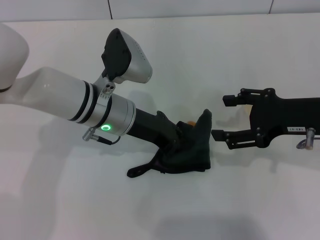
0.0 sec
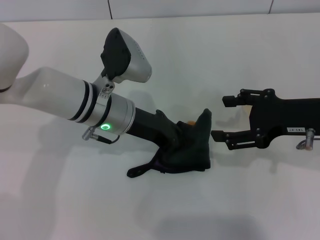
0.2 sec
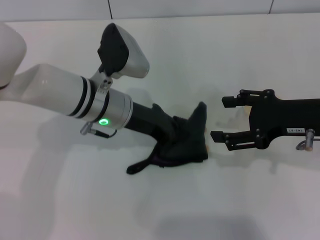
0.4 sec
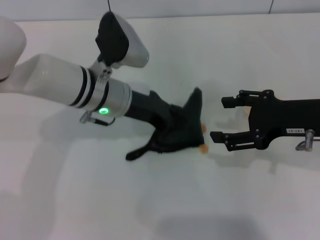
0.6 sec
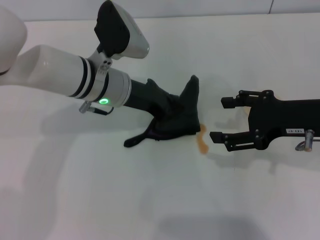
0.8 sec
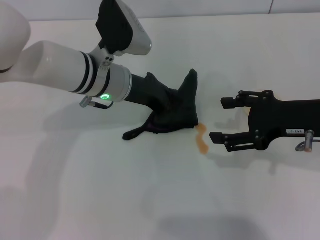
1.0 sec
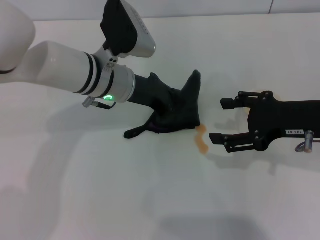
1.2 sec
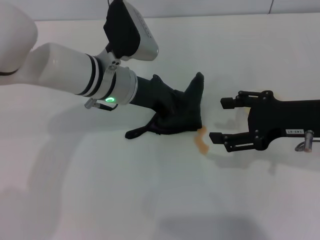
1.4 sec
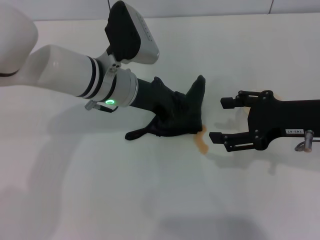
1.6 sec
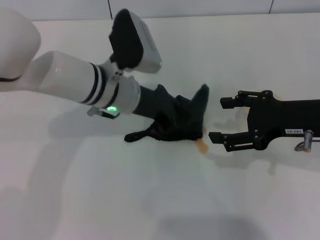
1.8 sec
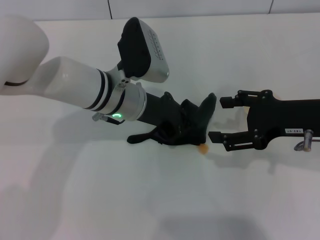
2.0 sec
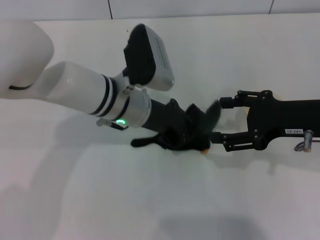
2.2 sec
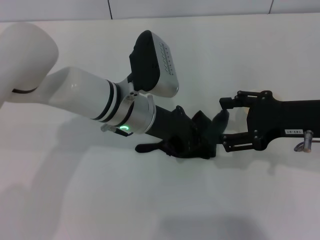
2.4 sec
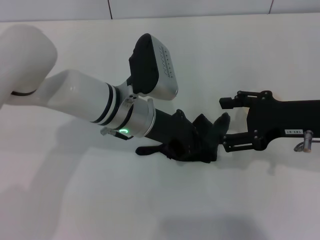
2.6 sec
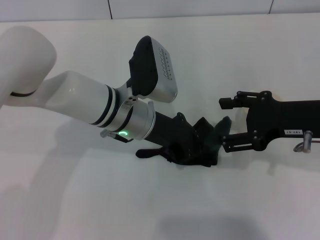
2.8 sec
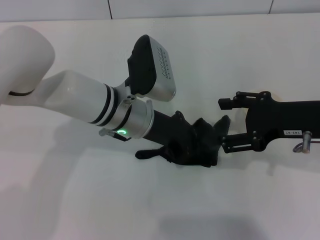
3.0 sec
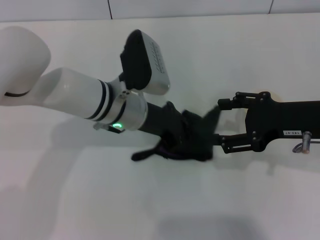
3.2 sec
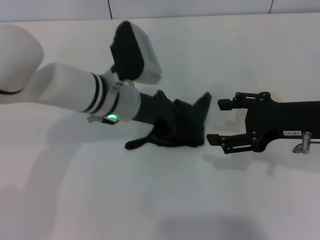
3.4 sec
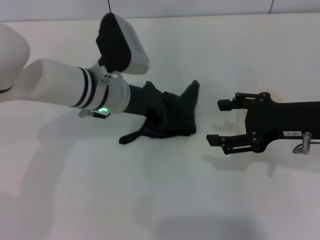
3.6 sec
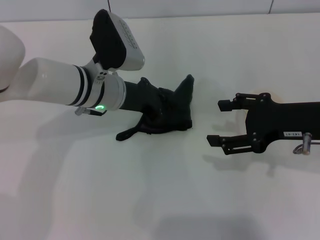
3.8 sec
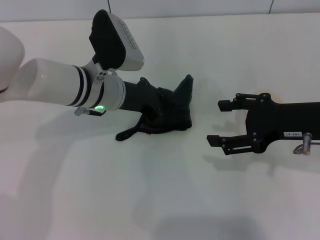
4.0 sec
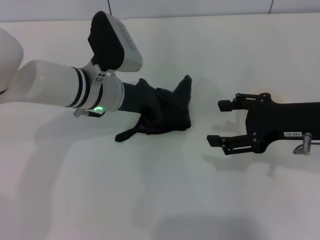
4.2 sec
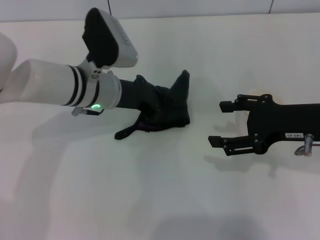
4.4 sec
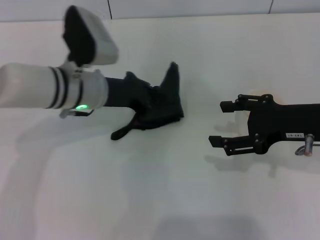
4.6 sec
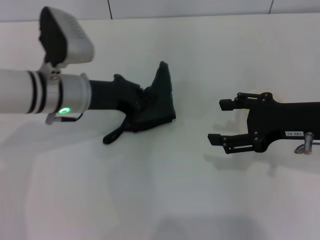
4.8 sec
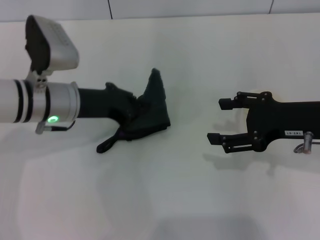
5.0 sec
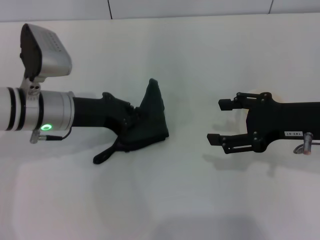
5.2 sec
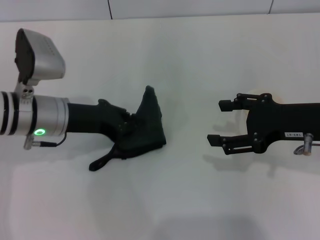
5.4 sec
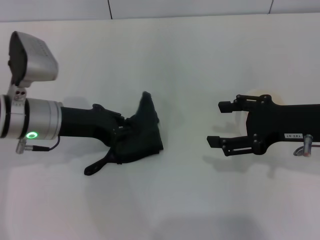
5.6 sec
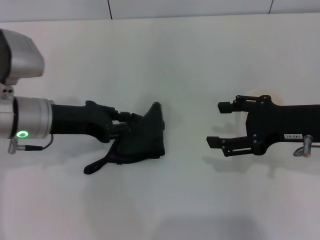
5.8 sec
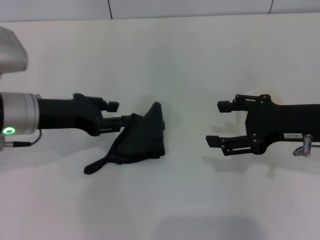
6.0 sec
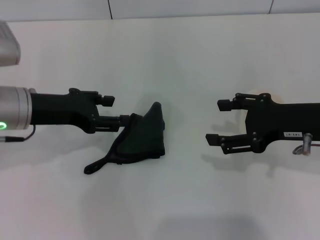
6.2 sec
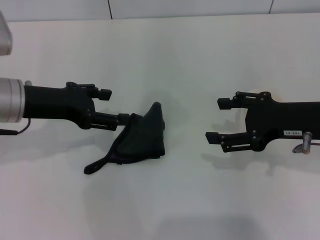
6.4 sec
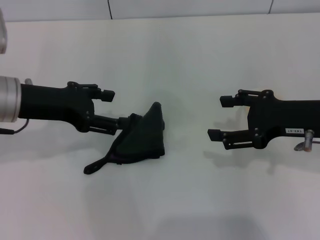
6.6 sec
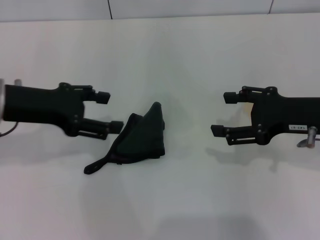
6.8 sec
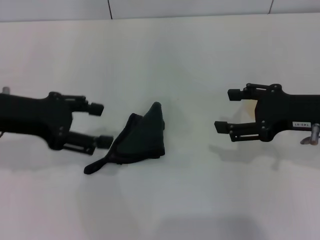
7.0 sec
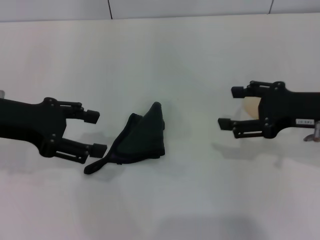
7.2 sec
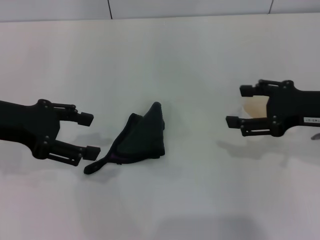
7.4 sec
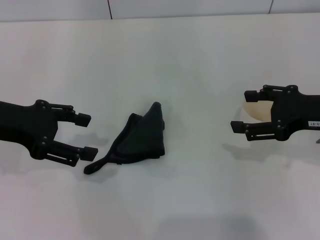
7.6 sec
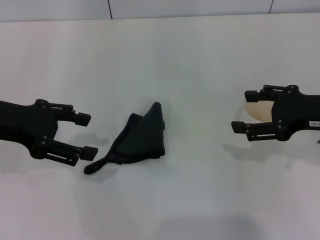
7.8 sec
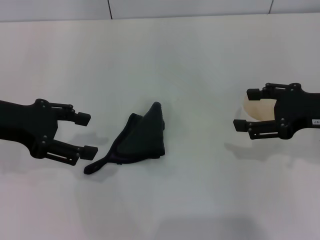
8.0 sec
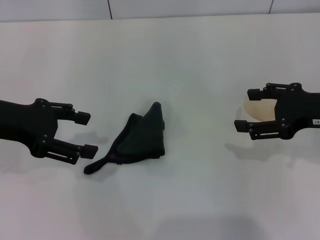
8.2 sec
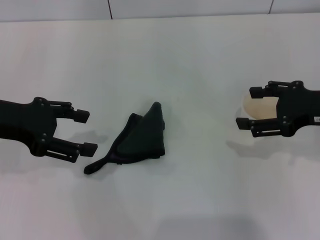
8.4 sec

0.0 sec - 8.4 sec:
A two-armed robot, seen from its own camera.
Step, 0.0 sec - 5.4 sec: Wipe the stains off the table with the left gripper.
Step, 5.6 sec - 6.0 sec: Place the rag on the table with the left gripper.
2.8 sec - 4.2 sec: The left gripper changes place by roughly 5 cm.
4.2 sec - 5.6 sec: The left gripper heads to the left, covering roughly 10 cm.
5.6 sec - 7.0 sec: The left gripper is displaced upward and to the left by approximately 10 cm, and opens.
7.0 sec - 8.4 sec: The grippers move only a little.

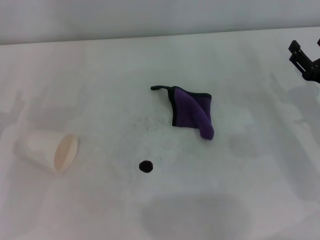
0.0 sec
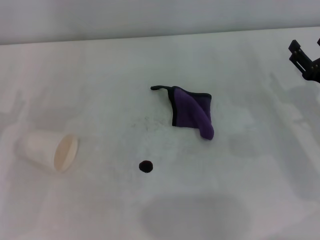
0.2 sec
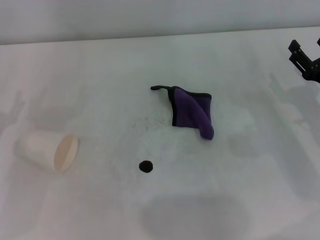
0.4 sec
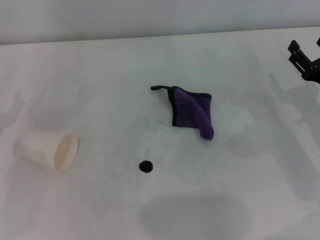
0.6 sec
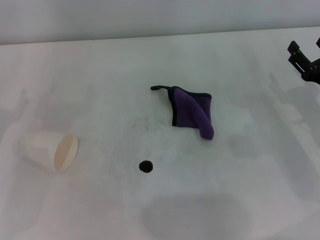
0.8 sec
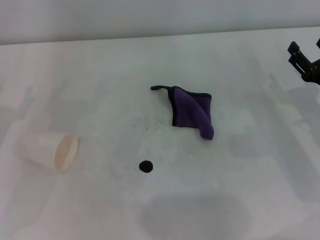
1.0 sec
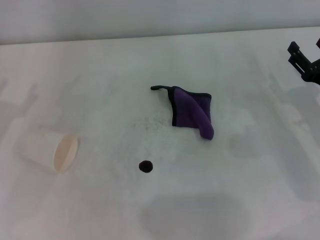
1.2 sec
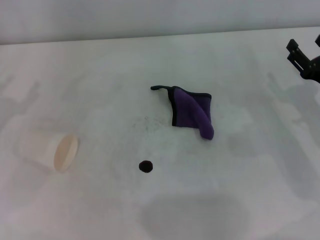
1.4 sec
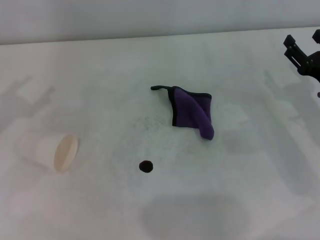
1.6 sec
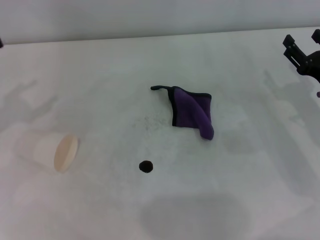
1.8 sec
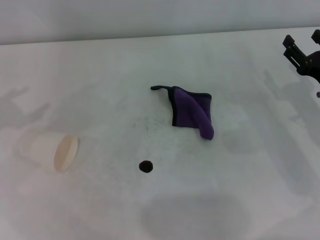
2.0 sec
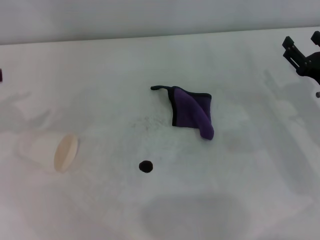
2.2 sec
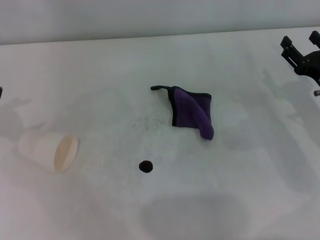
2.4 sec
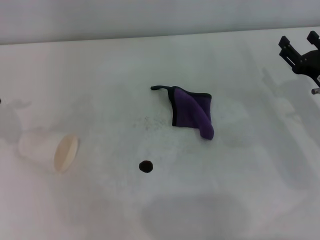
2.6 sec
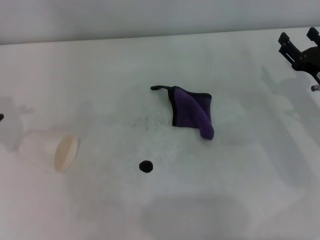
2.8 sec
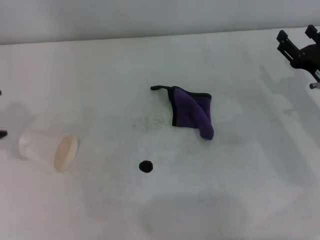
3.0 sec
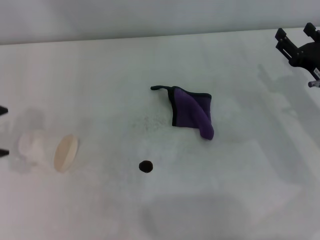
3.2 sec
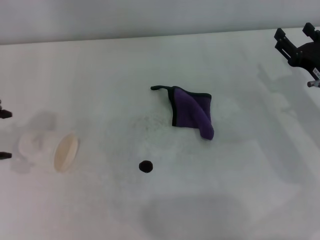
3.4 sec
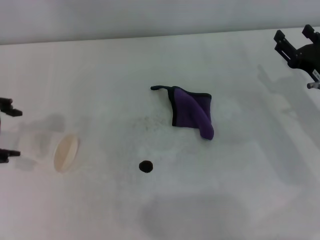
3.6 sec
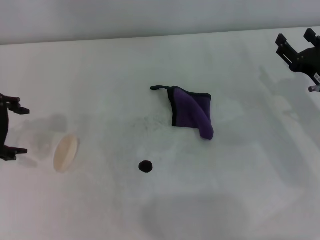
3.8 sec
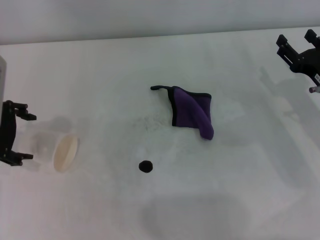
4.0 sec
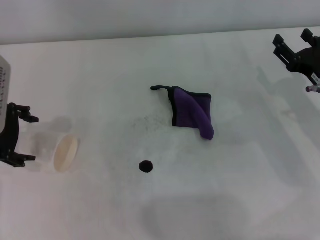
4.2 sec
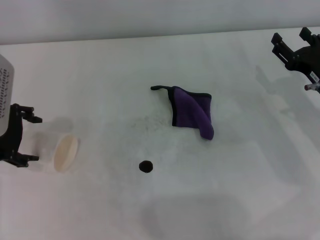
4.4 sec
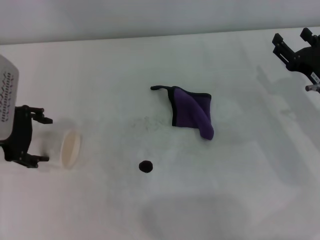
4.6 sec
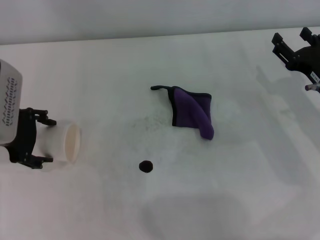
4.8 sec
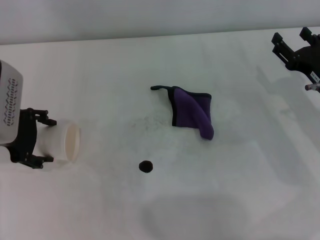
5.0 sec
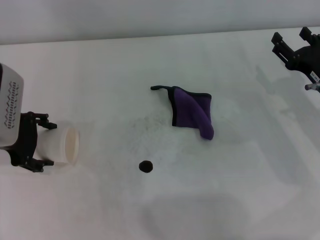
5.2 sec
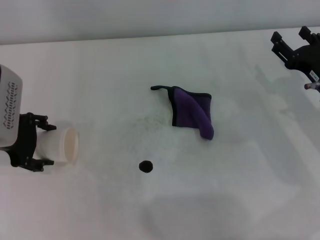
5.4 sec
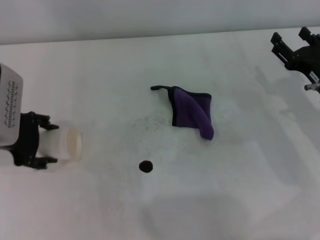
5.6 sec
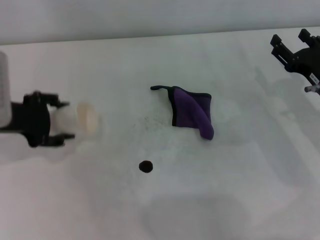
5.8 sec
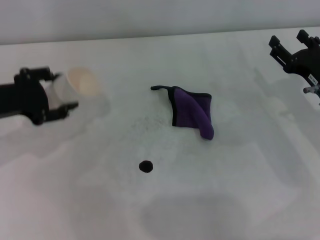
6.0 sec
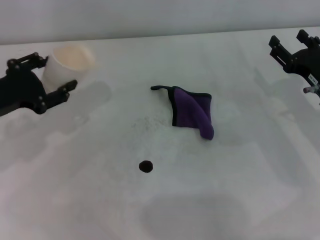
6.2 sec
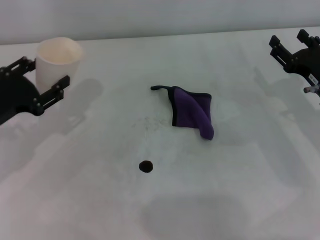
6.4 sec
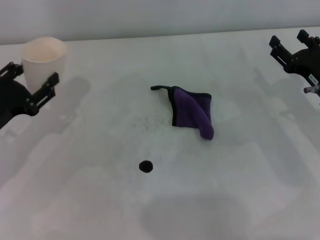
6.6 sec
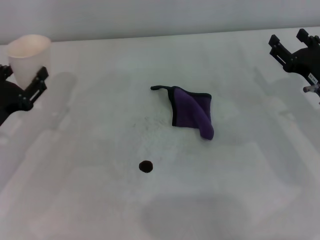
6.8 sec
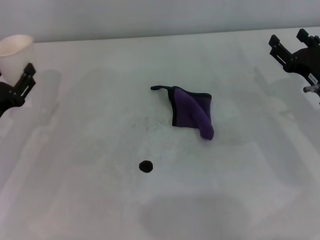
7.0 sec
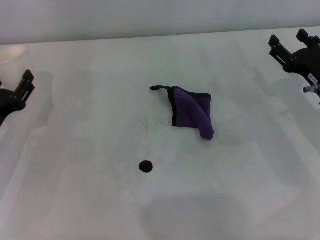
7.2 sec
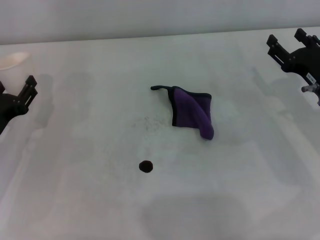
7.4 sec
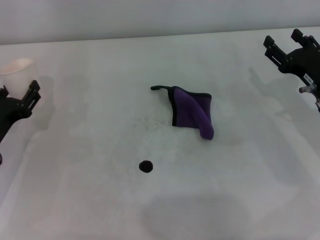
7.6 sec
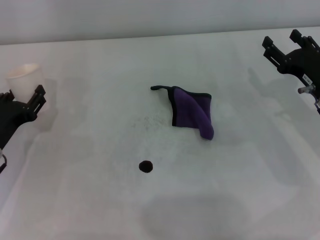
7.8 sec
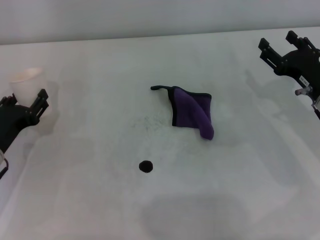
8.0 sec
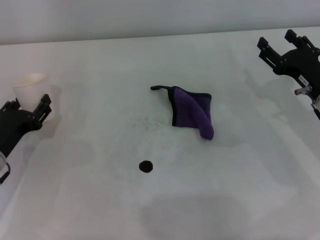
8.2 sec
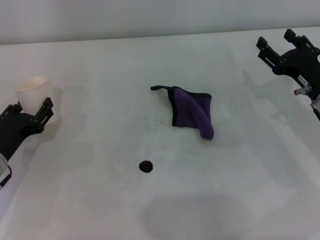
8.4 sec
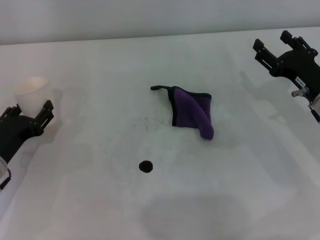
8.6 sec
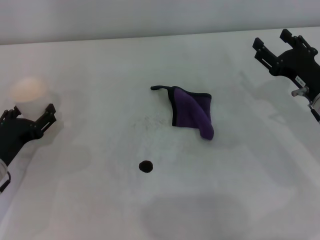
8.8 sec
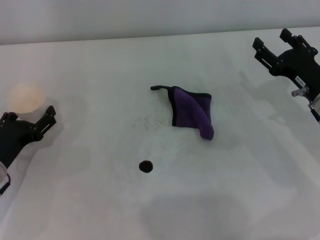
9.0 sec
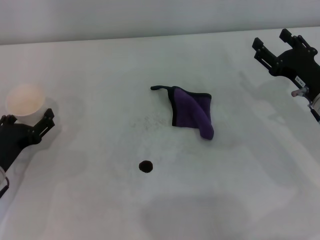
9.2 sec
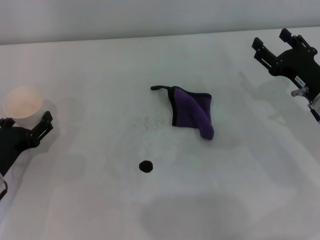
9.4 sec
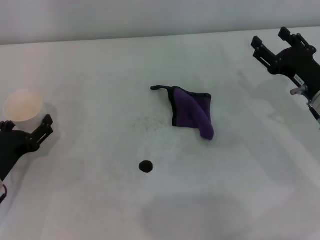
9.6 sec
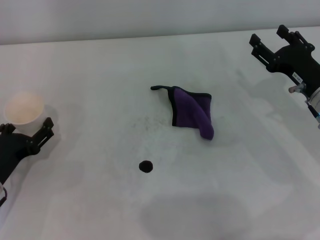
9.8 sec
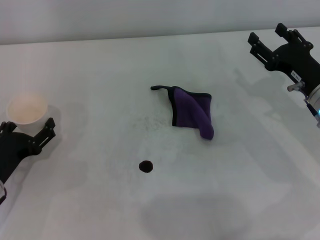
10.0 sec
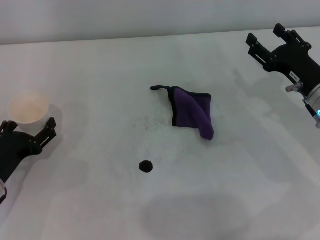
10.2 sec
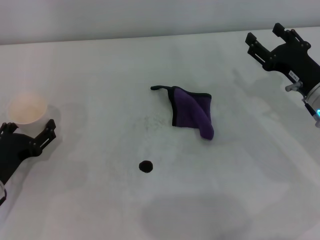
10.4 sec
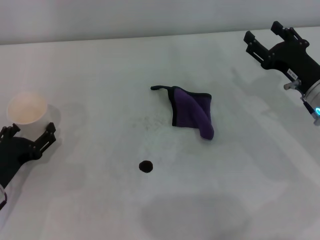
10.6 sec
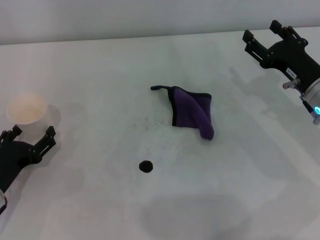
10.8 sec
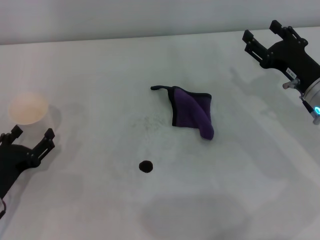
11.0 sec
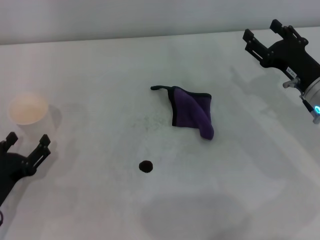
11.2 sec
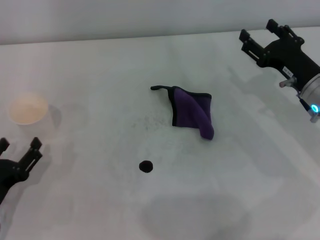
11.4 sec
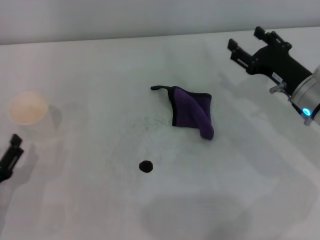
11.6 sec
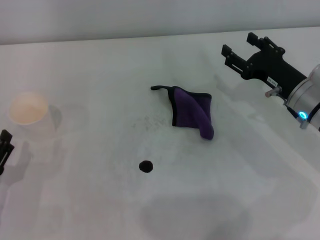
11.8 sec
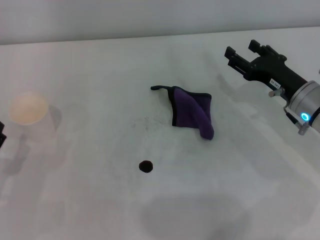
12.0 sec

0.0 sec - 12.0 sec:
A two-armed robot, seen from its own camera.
Step, 0.0 sec - 5.4 sec: Grasp the paper cup with the left gripper.
Step, 5.6 sec - 10.8 sec: Stand the paper cup upright with the left gripper.
3.0 sec - 4.4 sec: The left gripper travels to the right and downward by approximately 10 cm.
4.4 sec - 6.0 sec: The left gripper closes up.
6.0 sec - 7.6 sec: The left gripper heads downward, covering about 10 cm.
7.6 sec - 9.0 sec: The left gripper opens its fingers.
9.0 sec - 10.4 sec: There are only small adjustments of the grippers.
10.4 sec - 12.0 sec: The left gripper goes about 5 cm backward.

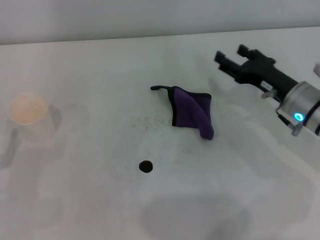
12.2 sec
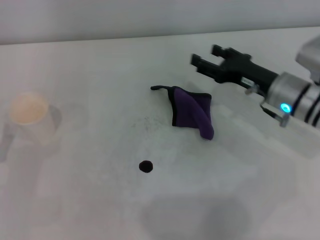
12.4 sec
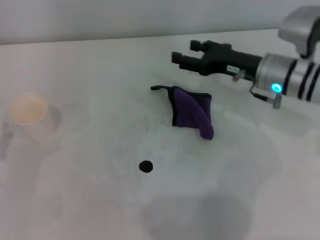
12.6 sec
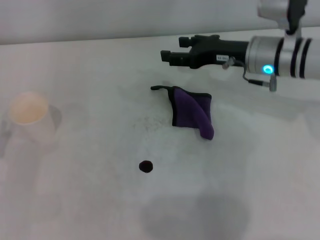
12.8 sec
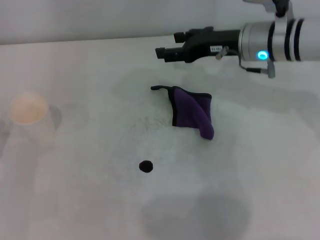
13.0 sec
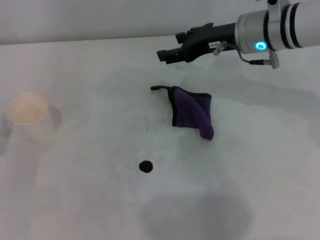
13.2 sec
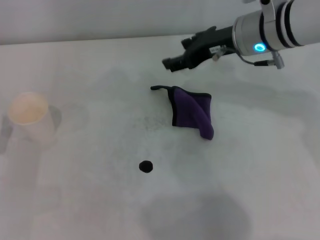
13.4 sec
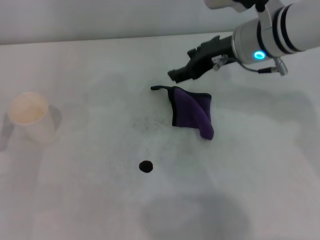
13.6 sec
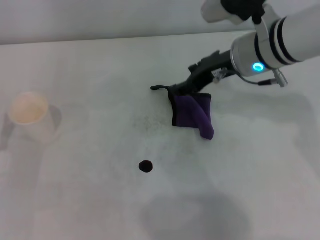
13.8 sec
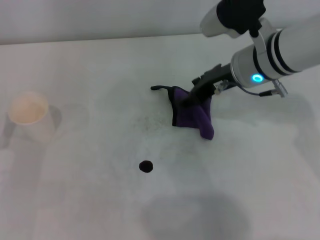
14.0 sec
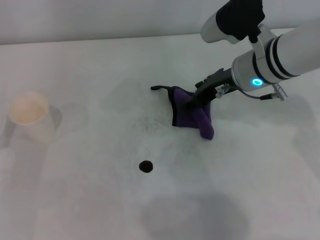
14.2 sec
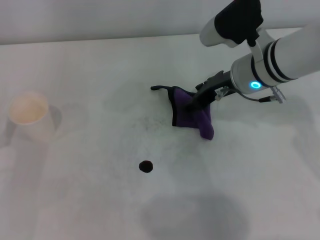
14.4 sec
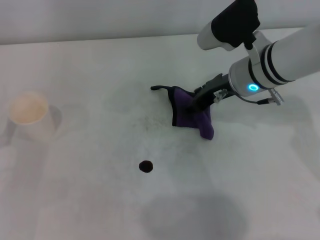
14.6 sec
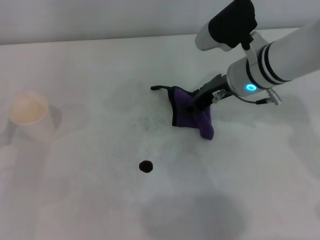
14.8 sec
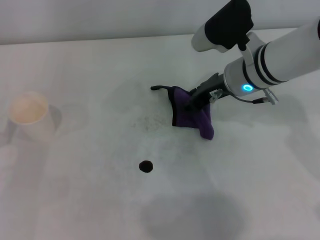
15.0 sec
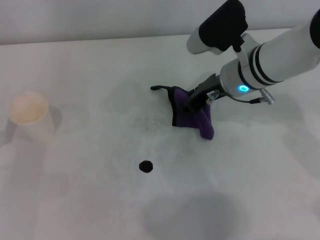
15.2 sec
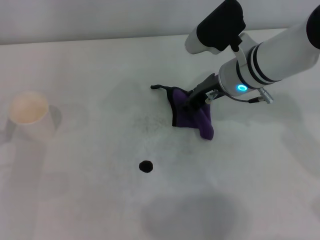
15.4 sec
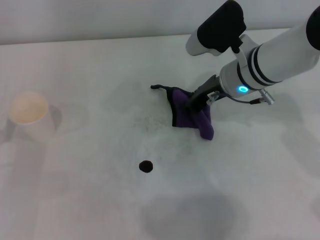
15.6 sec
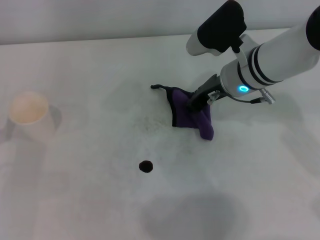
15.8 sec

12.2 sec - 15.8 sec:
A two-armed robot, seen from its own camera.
12.2 sec - 14.0 sec: The right gripper goes some 15 cm upward, to the left and forward.
14.0 sec - 15.8 sec: The right gripper closes its fingers.
